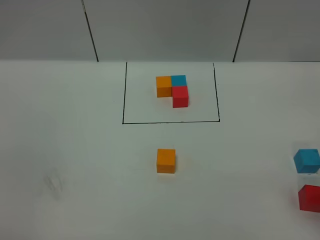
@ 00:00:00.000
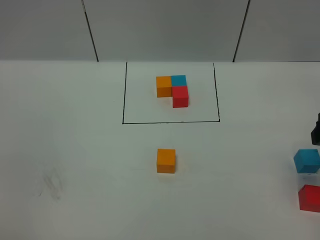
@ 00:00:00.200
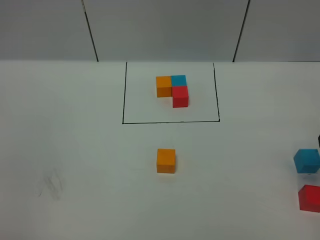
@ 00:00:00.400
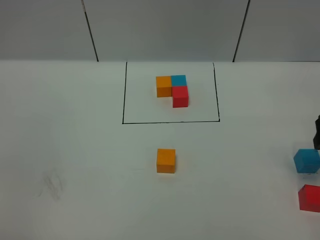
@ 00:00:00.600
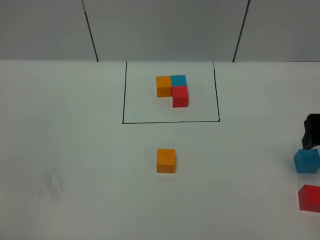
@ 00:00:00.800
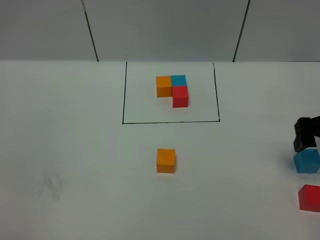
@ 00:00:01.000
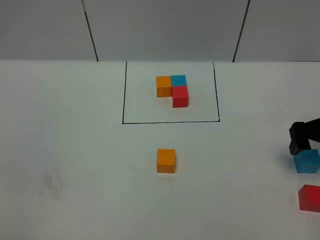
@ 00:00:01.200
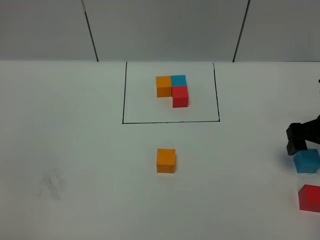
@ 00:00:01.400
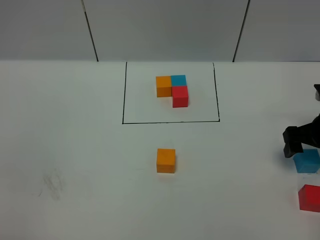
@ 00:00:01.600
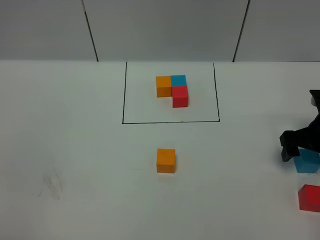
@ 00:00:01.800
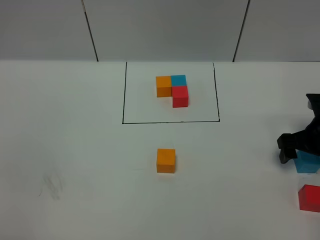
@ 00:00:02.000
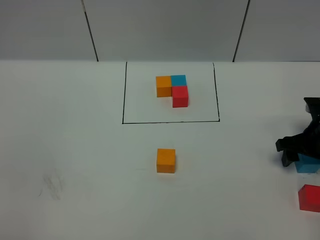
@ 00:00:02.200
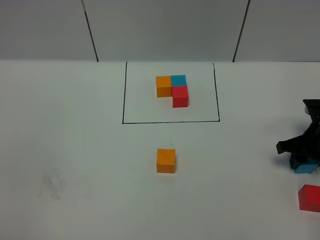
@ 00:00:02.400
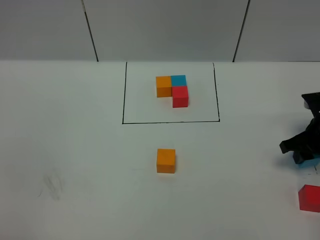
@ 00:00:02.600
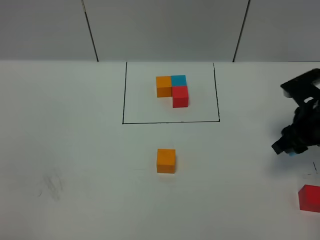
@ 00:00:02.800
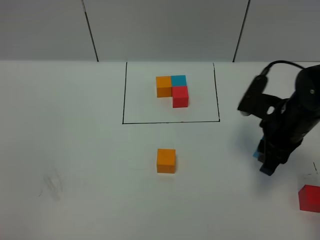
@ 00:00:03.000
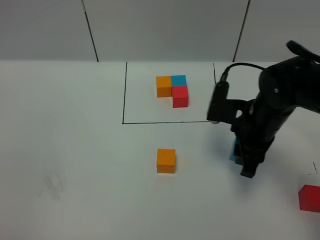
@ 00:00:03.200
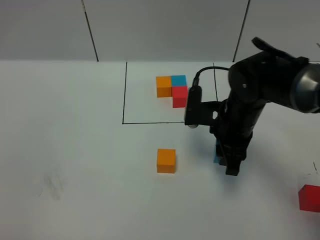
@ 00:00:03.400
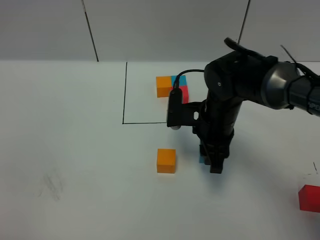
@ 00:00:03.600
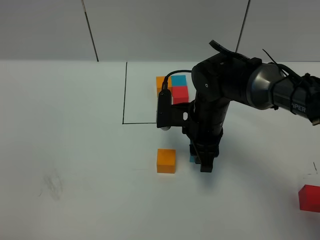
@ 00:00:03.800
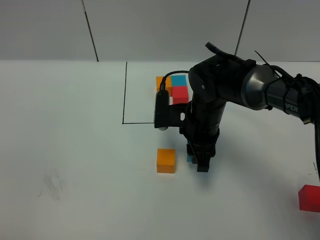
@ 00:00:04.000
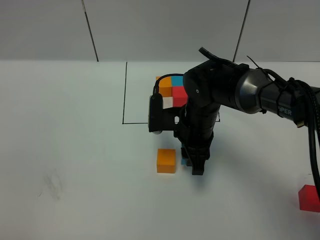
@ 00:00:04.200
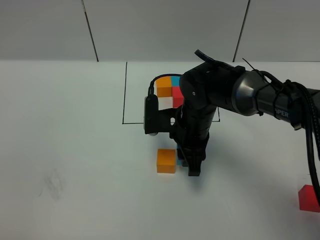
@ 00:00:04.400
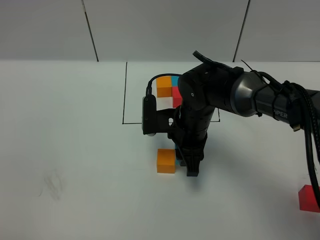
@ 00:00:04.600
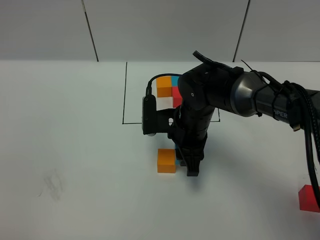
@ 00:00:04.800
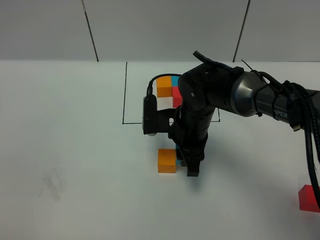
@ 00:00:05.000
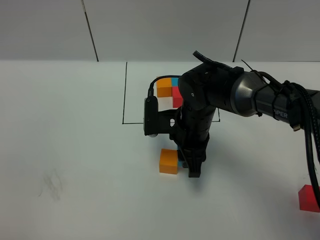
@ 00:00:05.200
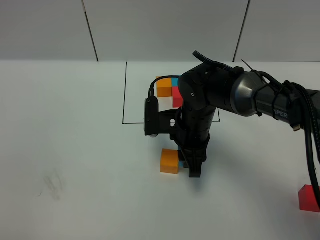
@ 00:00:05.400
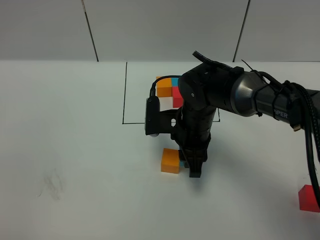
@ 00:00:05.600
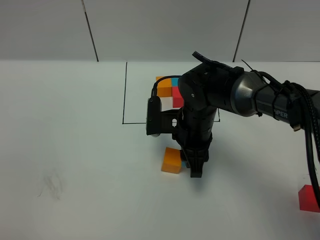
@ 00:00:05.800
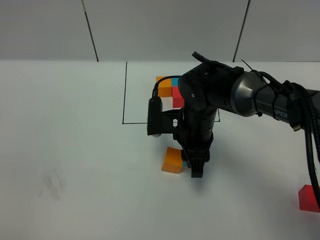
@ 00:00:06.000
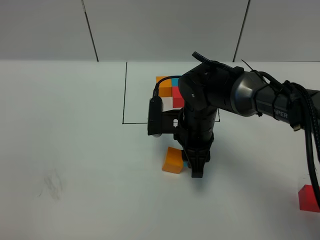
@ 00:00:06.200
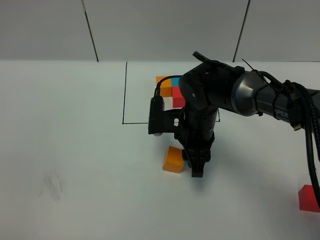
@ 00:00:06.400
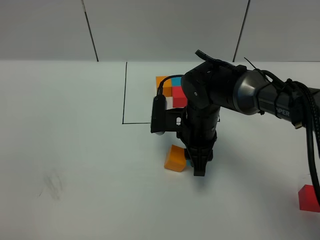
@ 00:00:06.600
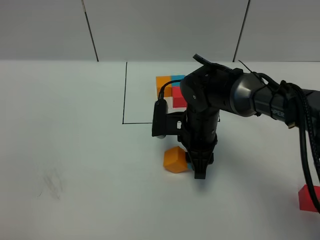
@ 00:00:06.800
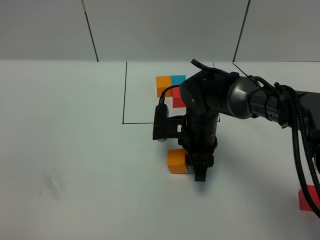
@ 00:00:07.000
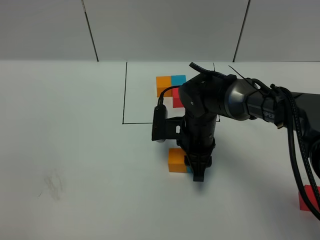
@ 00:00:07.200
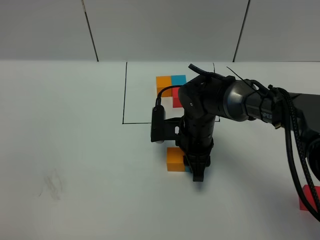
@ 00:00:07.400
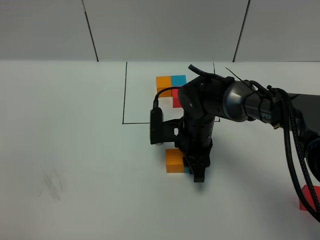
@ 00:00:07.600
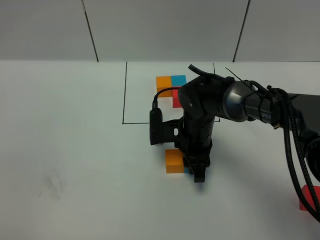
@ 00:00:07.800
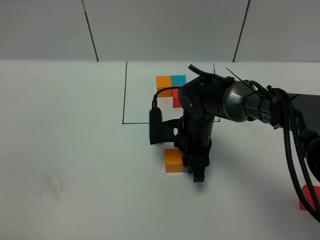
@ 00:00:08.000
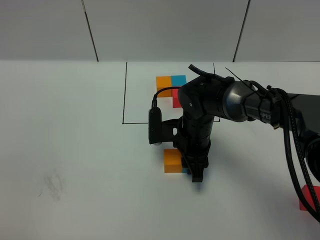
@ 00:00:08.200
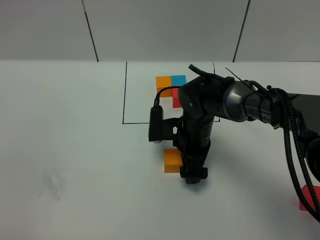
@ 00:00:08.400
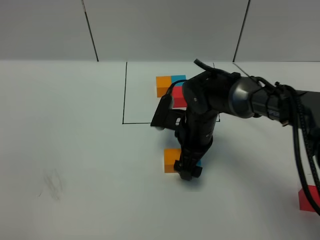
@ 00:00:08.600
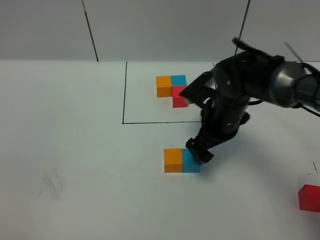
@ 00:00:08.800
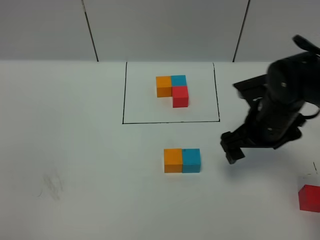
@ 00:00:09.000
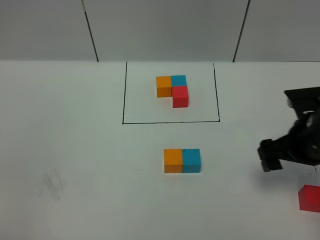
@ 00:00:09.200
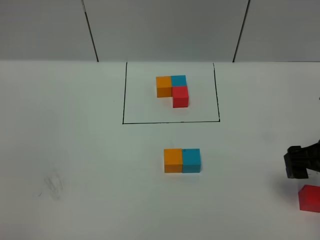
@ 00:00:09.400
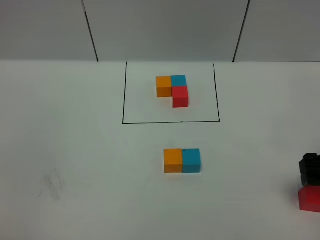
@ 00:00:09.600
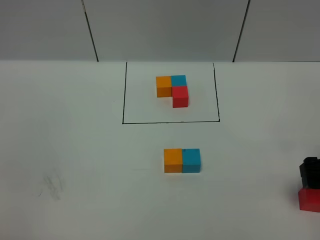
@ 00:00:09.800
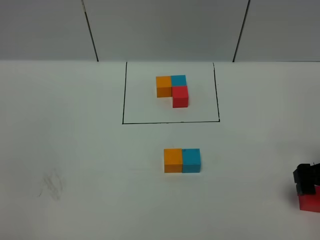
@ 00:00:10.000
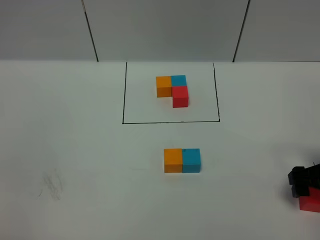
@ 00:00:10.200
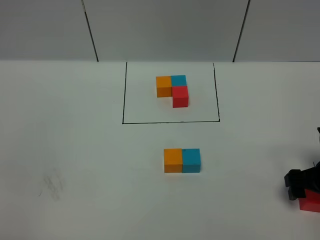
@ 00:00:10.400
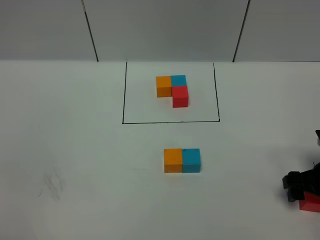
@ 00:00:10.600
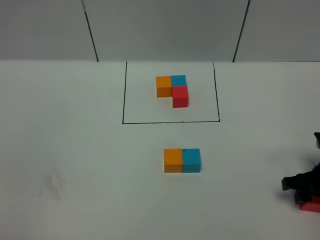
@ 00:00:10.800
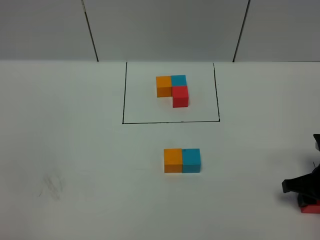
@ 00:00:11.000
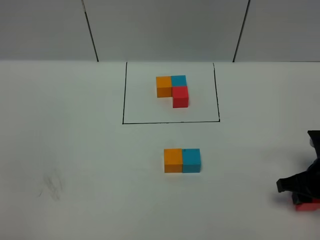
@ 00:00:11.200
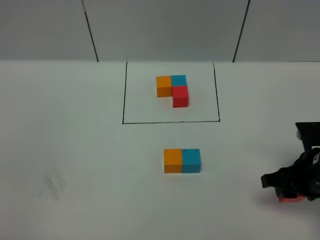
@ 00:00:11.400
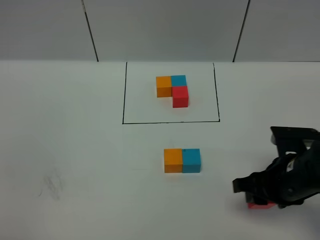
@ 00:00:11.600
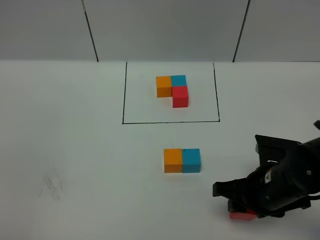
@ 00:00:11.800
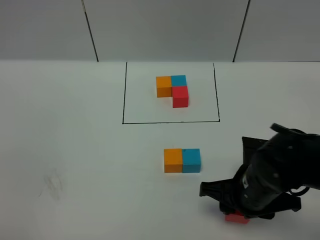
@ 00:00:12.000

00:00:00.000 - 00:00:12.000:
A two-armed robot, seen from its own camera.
Task of the whole recording: According to the building block template in front, assemble the scattered blocks together.
Step, 00:00:00.000 - 00:00:08.600: Put the blue cube on the right of the orange cube.
00:00:00.000 - 00:00:01.600: The right gripper is displaced forward and downward by approximately 20 cm.
00:00:01.600 - 00:00:03.000: The right gripper heads to the left, covering about 10 cm, and closes up.
00:00:03.000 - 00:00:04.400: The right gripper shifts roughly 15 cm to the left.
00:00:04.400 - 00:00:06.000: Both grippers stay put.
00:00:06.000 - 00:00:07.600: The grippers move only a little.
00:00:07.600 - 00:00:09.000: The right gripper goes some 15 cm to the right and upward, and opens.
00:00:09.000 - 00:00:10.400: The right gripper moves to the right, backward and downward, some 15 cm.
00:00:10.400 - 00:00:12.000: The right gripper goes some 15 cm to the left, and closes.

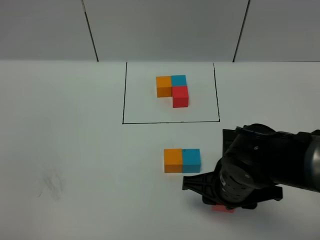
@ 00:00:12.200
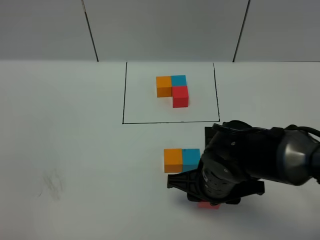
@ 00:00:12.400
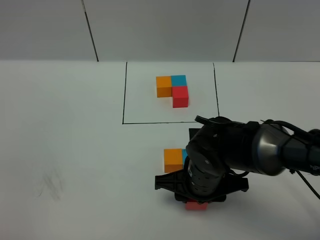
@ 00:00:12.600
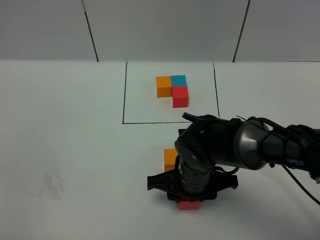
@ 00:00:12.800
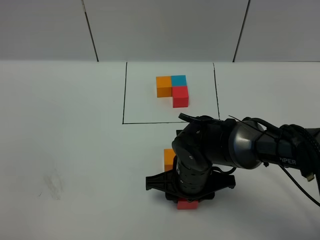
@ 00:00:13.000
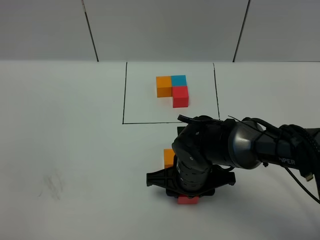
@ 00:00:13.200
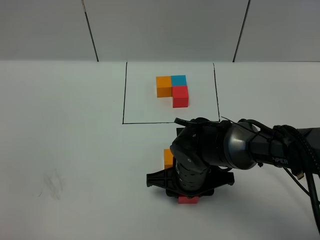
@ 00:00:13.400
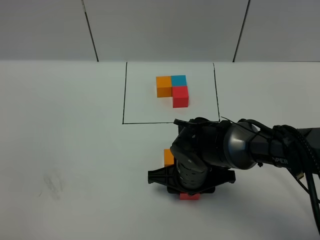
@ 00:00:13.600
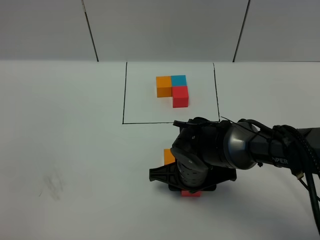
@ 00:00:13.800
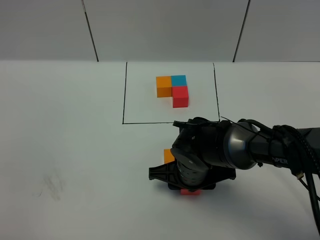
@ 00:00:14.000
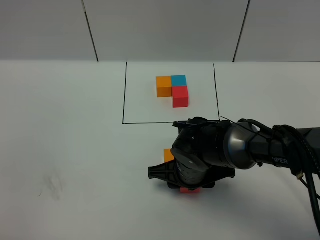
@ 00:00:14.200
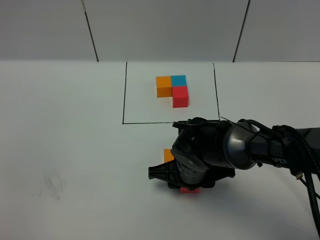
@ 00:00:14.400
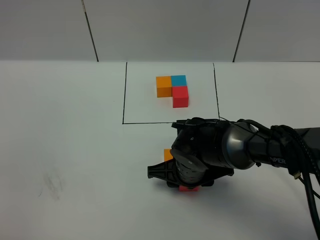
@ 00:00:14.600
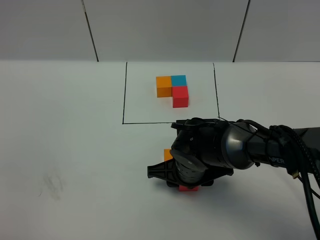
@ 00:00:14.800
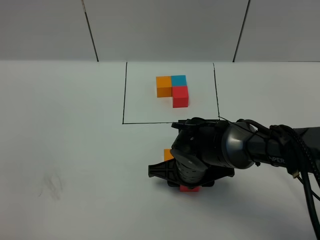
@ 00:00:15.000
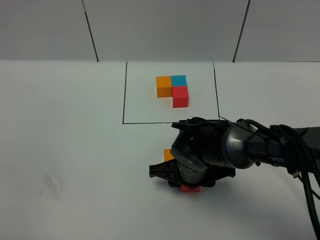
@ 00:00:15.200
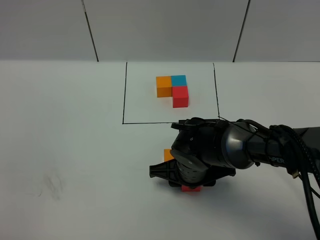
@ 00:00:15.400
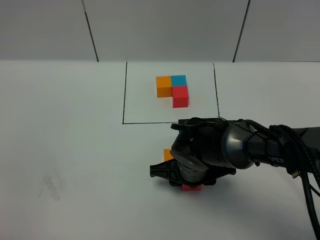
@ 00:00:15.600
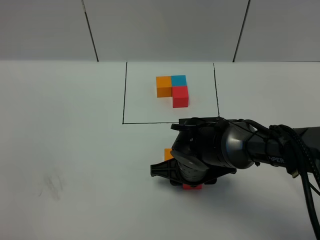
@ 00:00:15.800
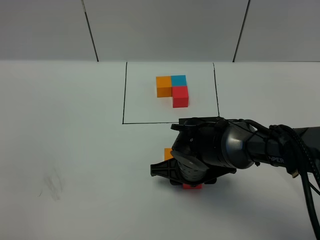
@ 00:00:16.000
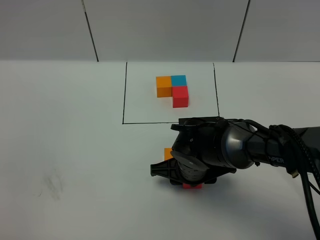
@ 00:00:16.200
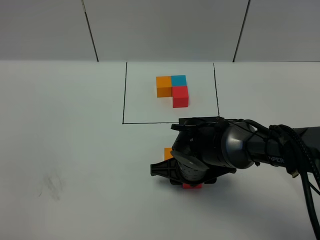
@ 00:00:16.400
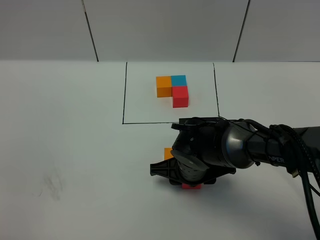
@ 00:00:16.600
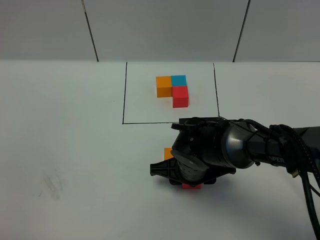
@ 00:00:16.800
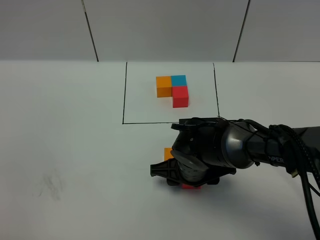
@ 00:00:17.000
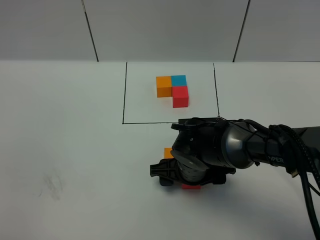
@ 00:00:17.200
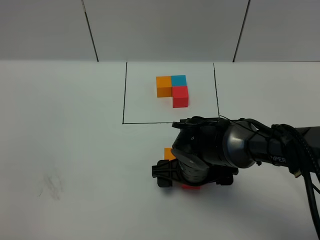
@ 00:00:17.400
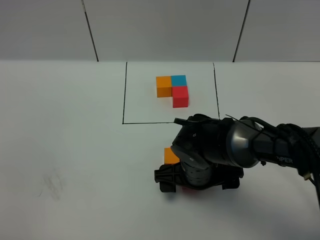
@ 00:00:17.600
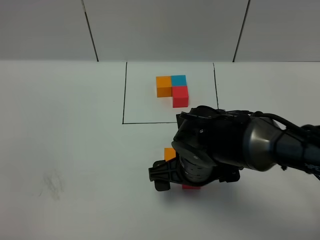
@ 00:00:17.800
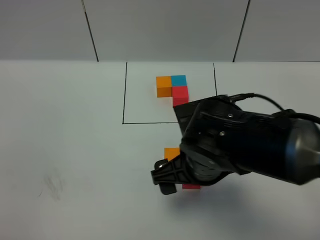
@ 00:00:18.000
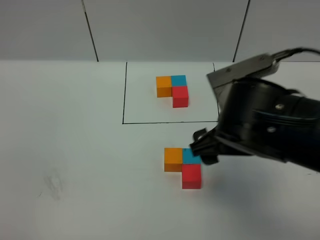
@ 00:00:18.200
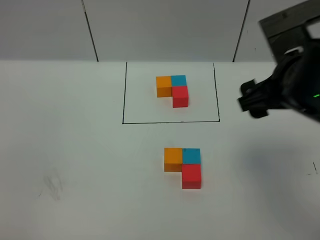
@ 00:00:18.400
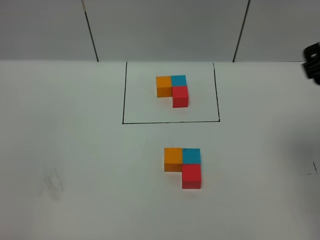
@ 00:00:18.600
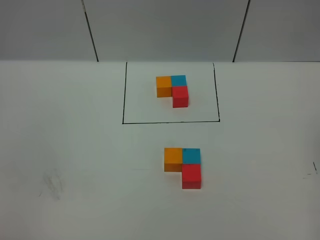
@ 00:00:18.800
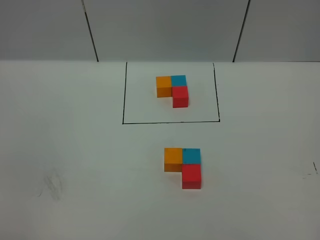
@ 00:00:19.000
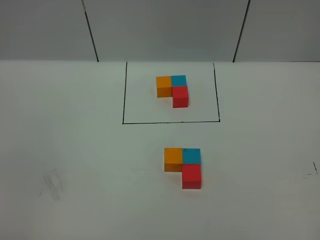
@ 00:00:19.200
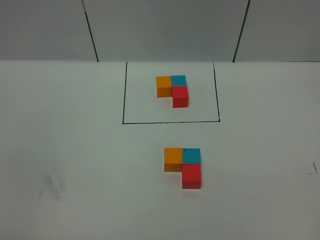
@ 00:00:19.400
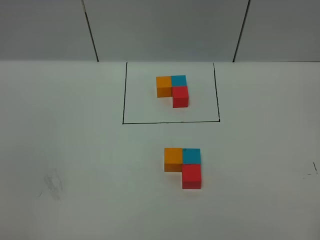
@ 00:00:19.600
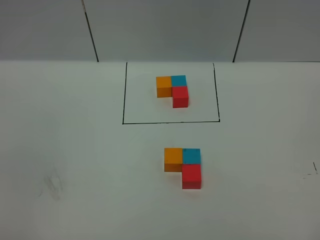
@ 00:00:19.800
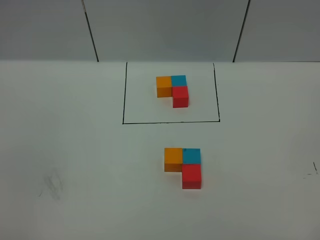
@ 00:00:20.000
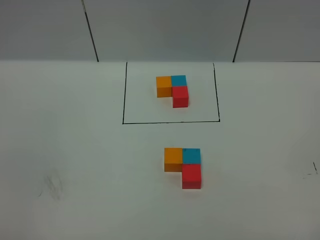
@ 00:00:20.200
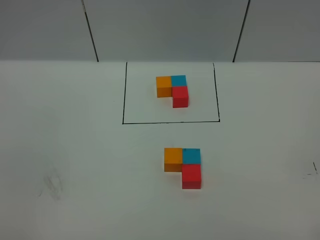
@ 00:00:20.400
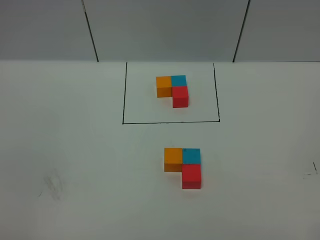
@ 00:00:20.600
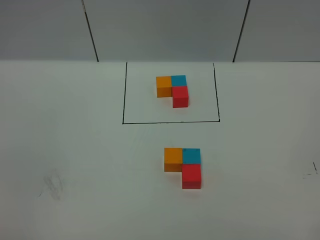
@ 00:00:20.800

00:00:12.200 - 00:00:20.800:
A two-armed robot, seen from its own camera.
Task of the whole recording: According to the building block template in front, assemble the scattered blocks together.
Step, 00:00:12.200 - 00:00:17.800: Put the red cube in the front of the blue cube.
00:00:12.200 - 00:00:13.600: The right gripper is displaced to the left by some 5 cm.
00:00:13.600 - 00:00:15.000: Both grippers stay put.
00:00:15.000 - 00:00:16.600: The two grippers keep their place.
00:00:16.600 - 00:00:18.000: The right gripper travels upward and backward by approximately 15 cm, and opens up.
00:00:18.000 - 00:00:19.400: The right gripper travels to the right, upward and backward by about 35 cm.
